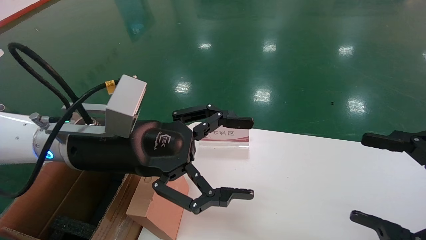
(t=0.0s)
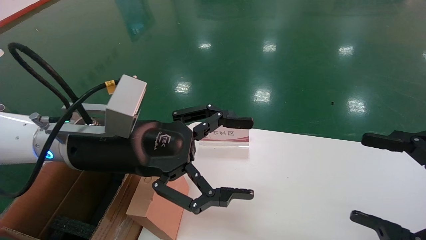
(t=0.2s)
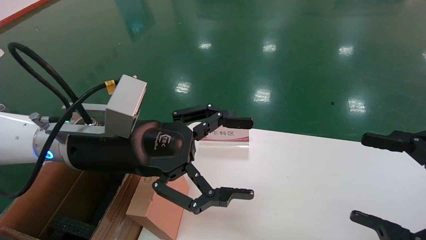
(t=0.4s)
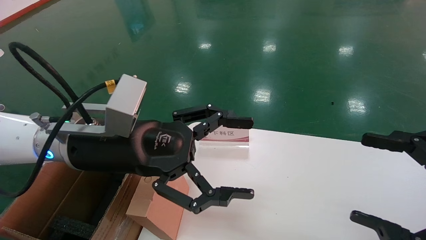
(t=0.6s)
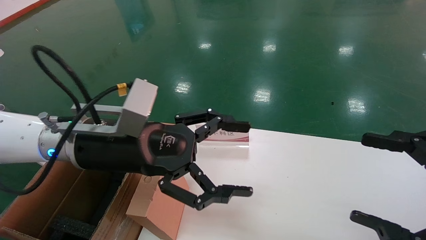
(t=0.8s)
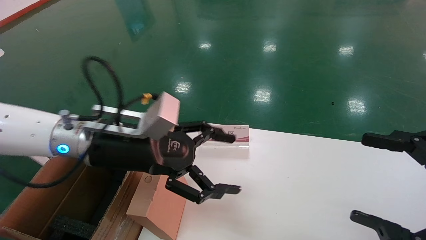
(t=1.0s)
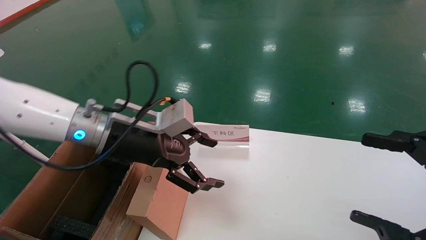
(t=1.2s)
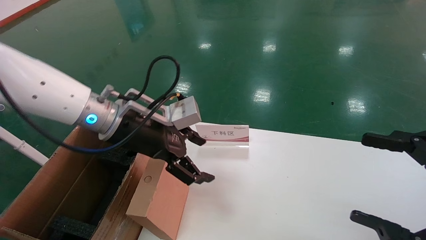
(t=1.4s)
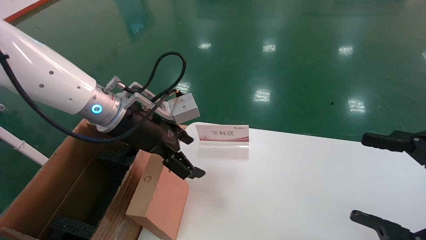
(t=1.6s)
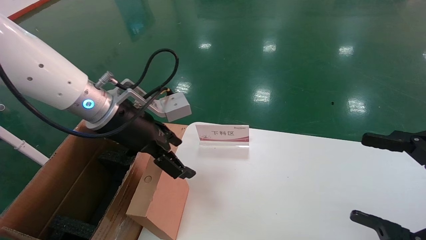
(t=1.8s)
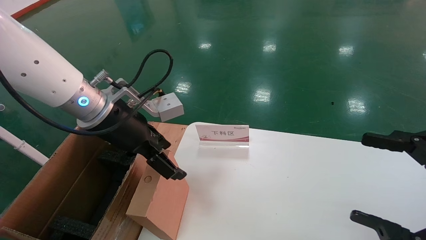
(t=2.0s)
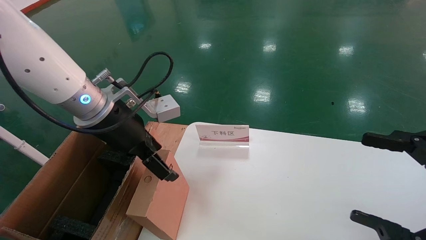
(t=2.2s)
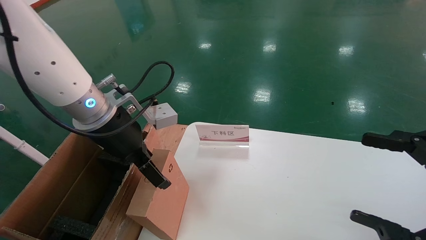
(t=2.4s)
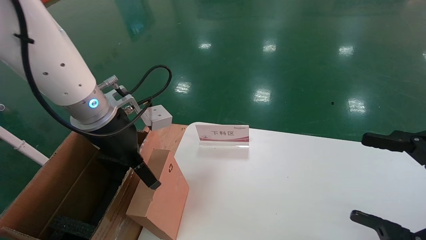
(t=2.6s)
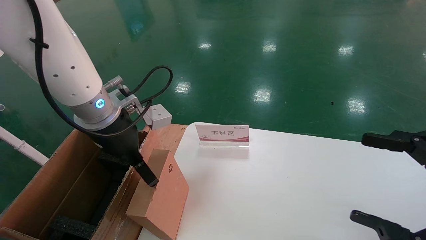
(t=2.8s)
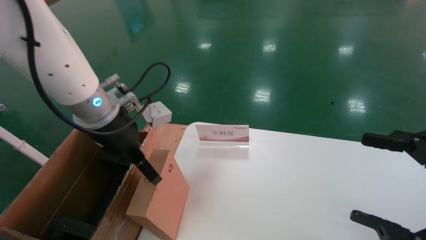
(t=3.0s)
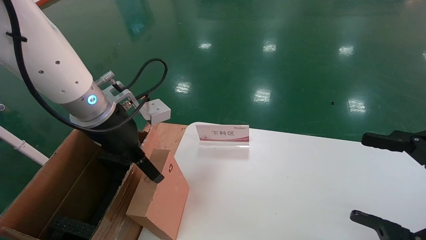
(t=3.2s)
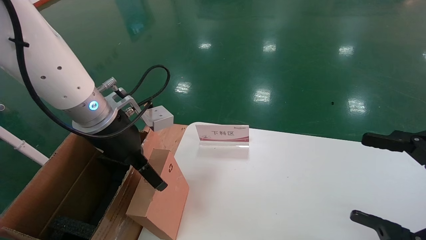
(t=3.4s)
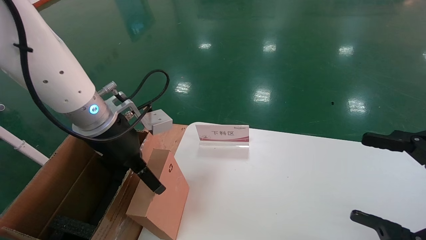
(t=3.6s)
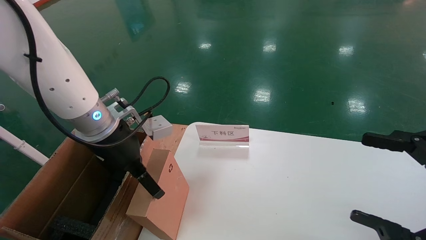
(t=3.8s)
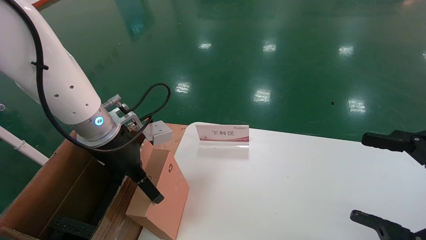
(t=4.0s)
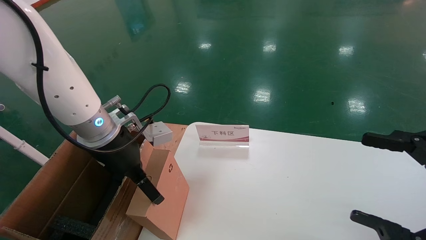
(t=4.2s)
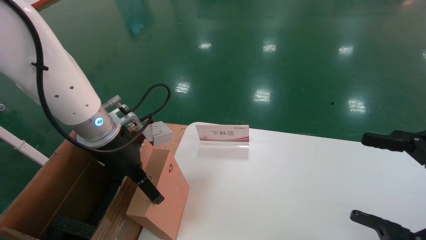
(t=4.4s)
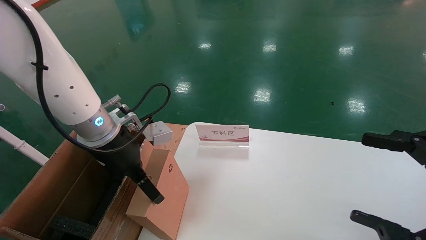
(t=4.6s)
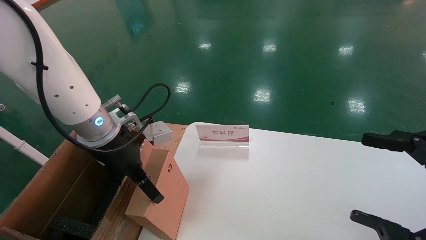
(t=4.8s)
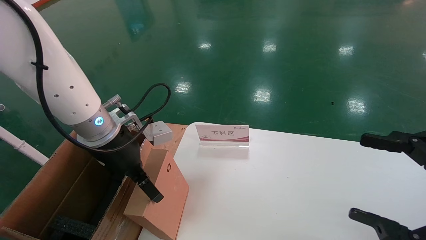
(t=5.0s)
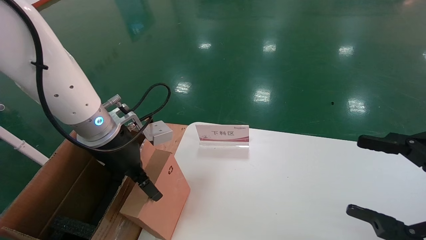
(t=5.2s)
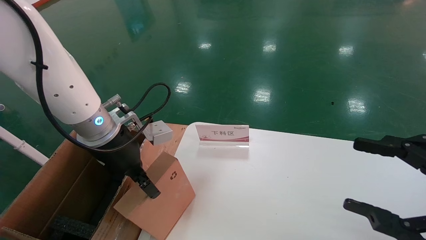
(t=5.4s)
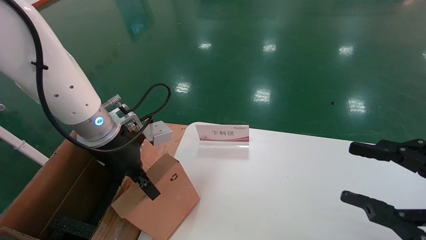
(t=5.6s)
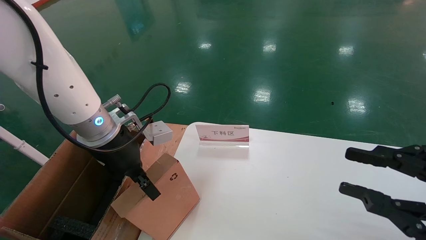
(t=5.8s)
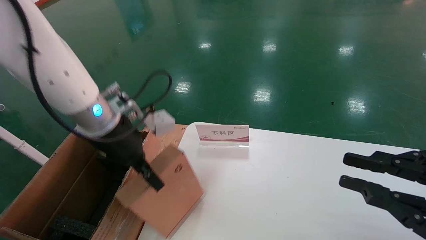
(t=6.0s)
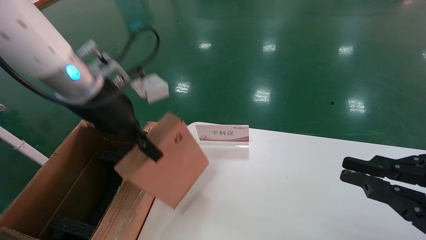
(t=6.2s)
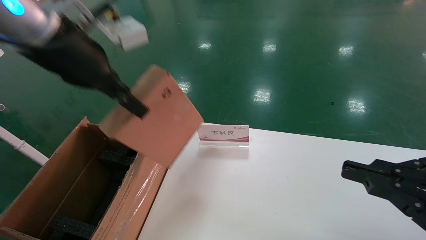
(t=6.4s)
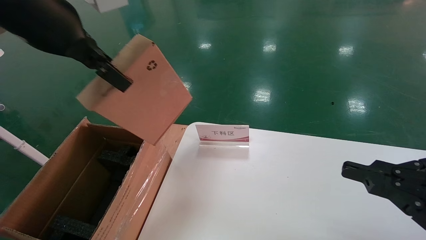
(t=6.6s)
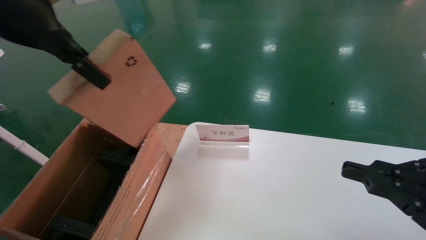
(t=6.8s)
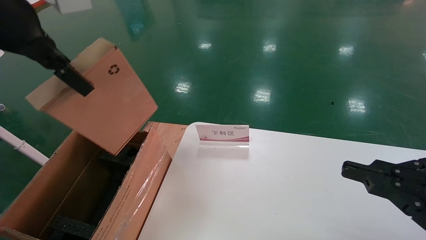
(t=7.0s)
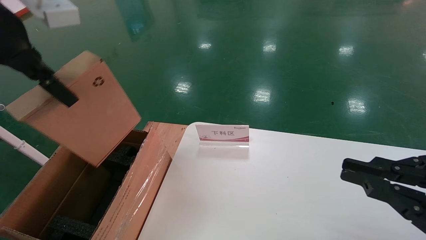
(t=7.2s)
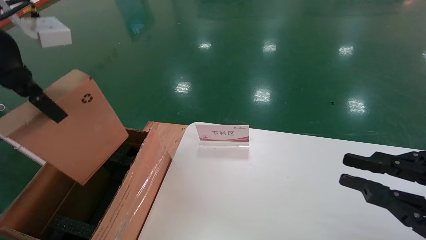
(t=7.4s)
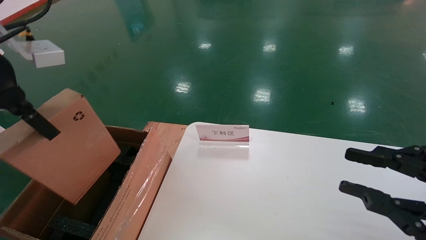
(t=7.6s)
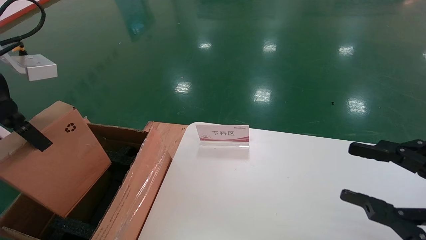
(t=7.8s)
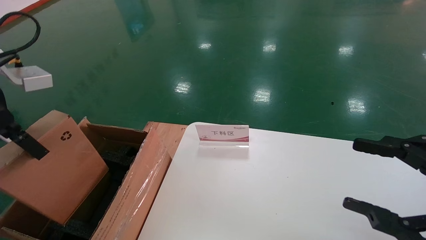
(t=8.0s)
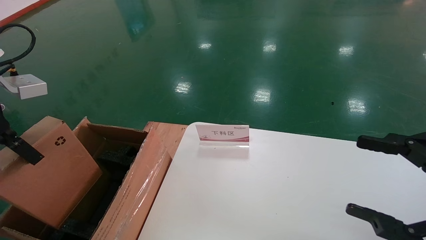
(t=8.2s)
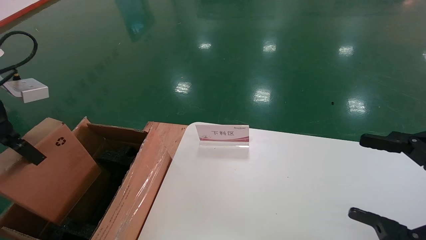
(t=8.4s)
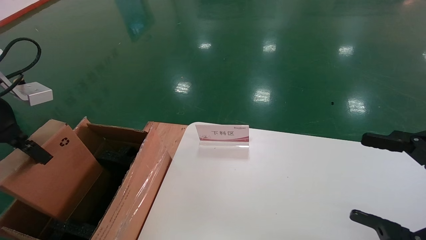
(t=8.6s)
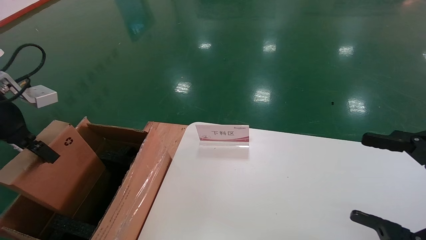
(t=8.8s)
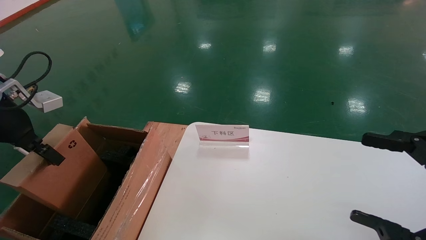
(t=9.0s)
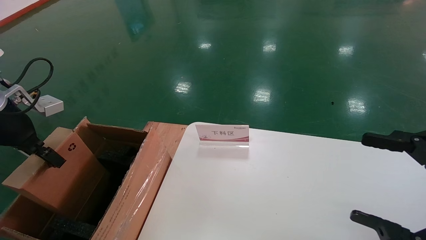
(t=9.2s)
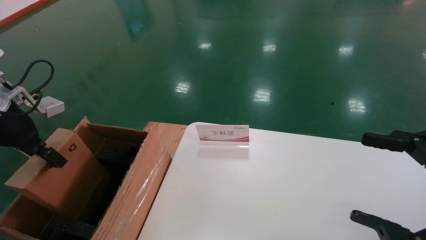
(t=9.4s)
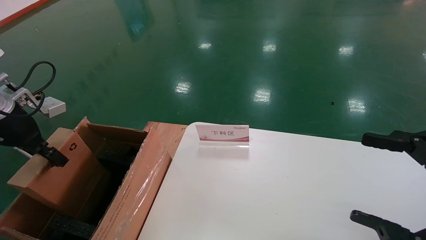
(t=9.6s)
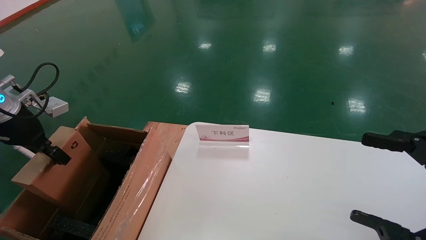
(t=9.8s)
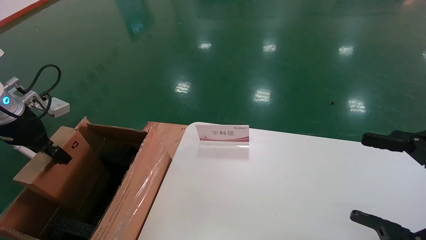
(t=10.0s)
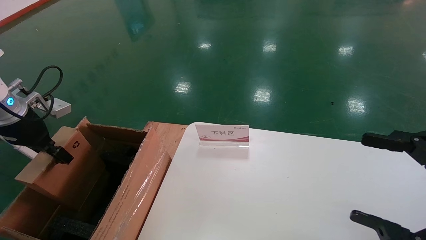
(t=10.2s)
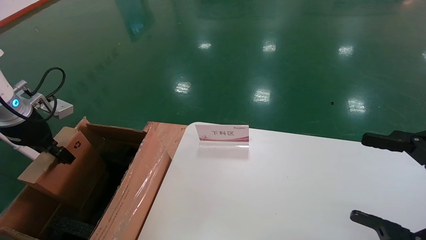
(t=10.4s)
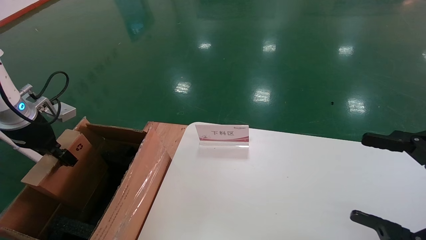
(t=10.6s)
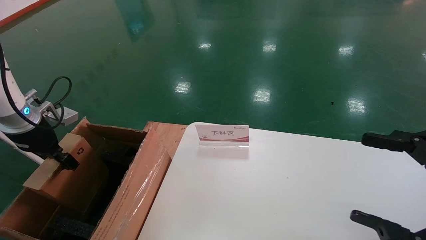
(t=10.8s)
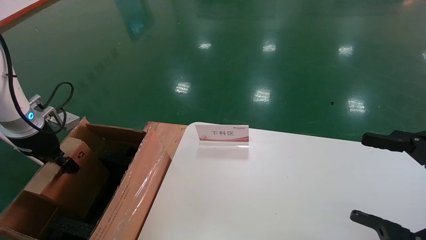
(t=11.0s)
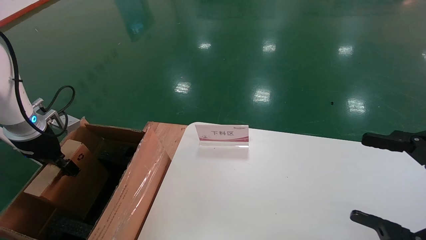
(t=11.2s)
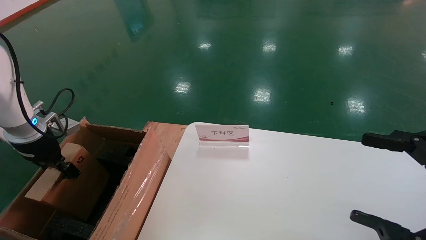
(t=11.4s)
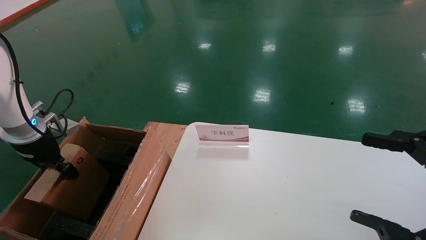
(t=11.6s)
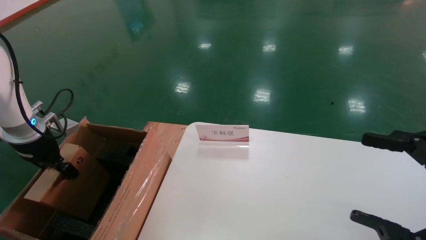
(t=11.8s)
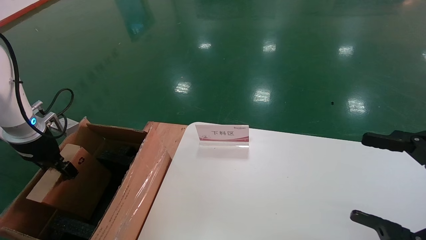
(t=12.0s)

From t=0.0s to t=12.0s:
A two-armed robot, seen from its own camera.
Task of the whole recording: pick up the small cardboard box and load it into the large cardboard box.
Step, from t=1.0s to t=5.6s: Pick up the mouse and power cord box.
From t=0.0s to t=1.6s: The left gripper moves forward, some 5 cm.
From t=3.0s to t=4.4s: The grippers move only a little.
From t=4.4s to t=6.0s: The right gripper closes; the left gripper closes its fingers.
From t=6.0s to t=7.6s: The left gripper heads to the left, upward and backward, covering some 20 cm.
From t=7.6s to t=9.0s: The right gripper opens its fingers. The left gripper moves downward and to the left, roughly 15 cm.
From t=9.0s to t=10.4s: The left gripper moves forward, about 5 cm.
From t=10.4s to t=12.0s: The left gripper ends up some 5 cm from where it was.

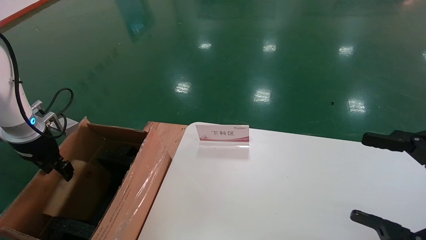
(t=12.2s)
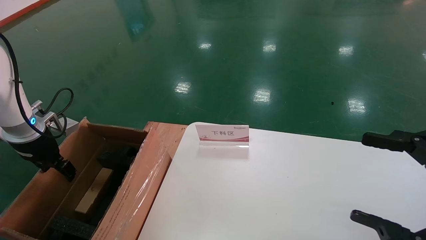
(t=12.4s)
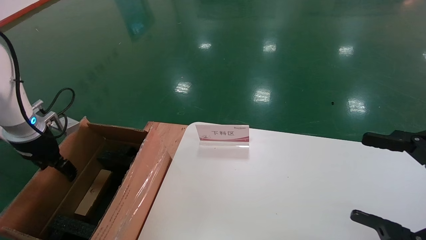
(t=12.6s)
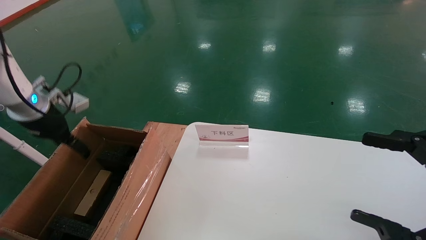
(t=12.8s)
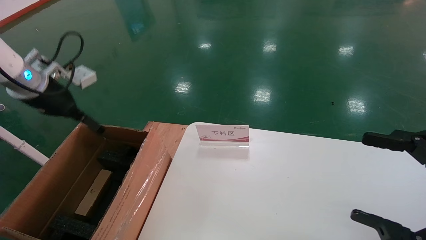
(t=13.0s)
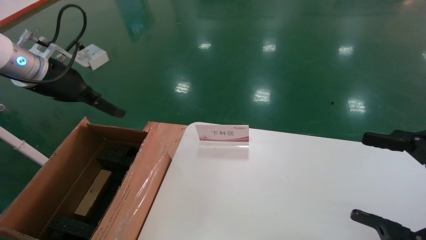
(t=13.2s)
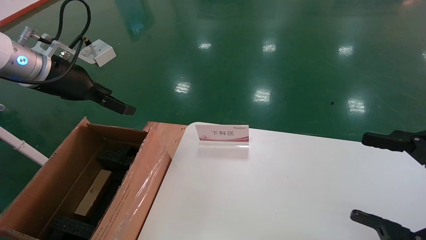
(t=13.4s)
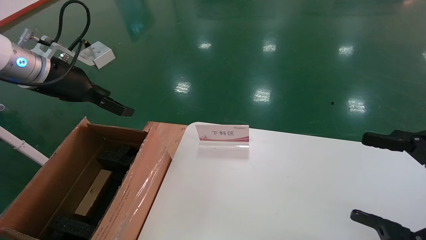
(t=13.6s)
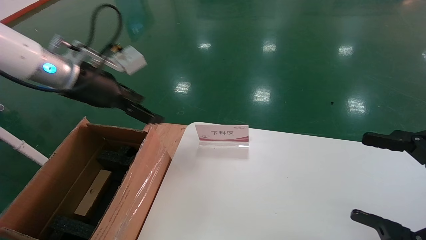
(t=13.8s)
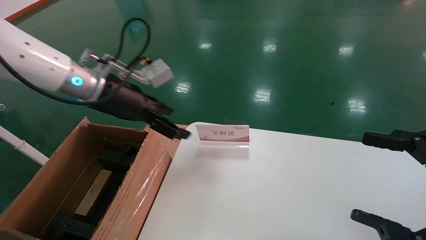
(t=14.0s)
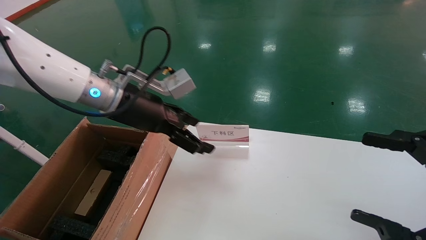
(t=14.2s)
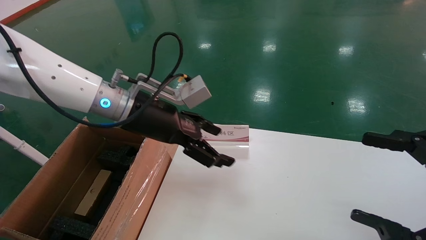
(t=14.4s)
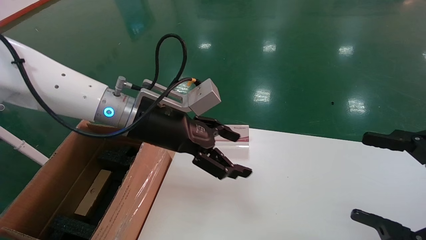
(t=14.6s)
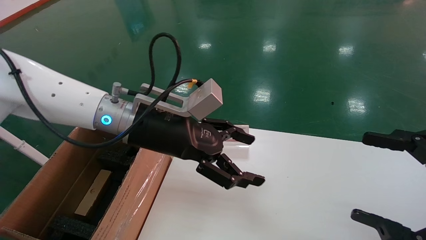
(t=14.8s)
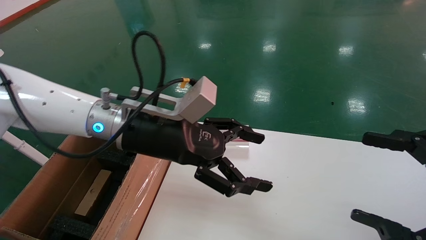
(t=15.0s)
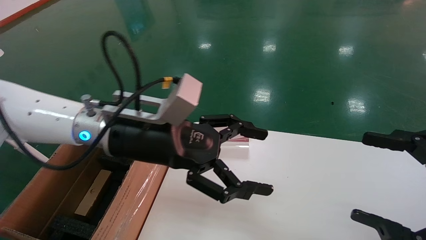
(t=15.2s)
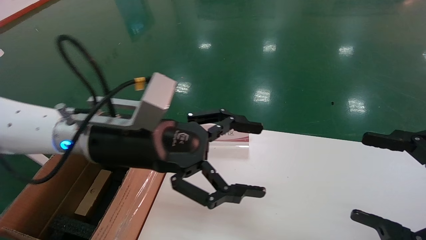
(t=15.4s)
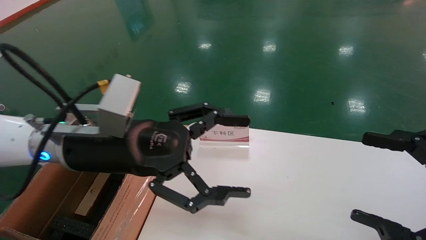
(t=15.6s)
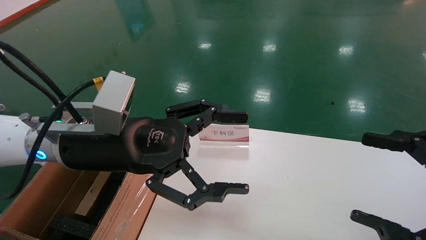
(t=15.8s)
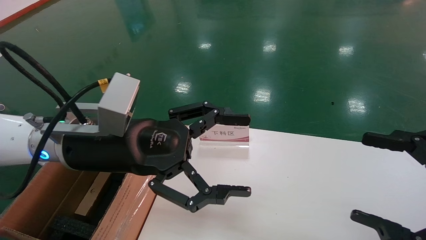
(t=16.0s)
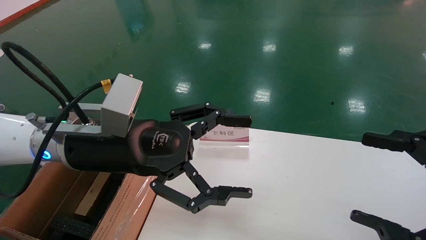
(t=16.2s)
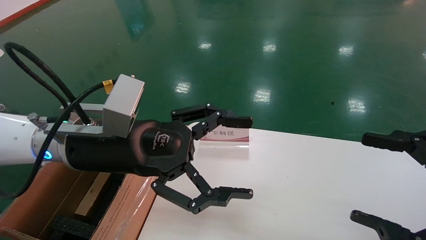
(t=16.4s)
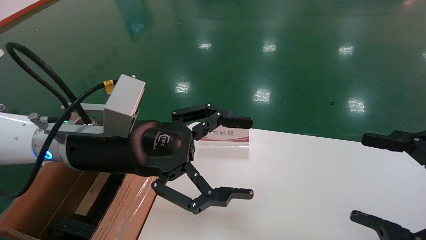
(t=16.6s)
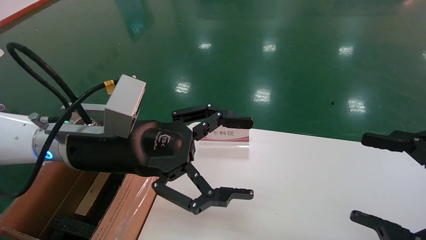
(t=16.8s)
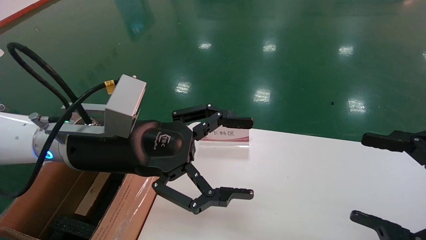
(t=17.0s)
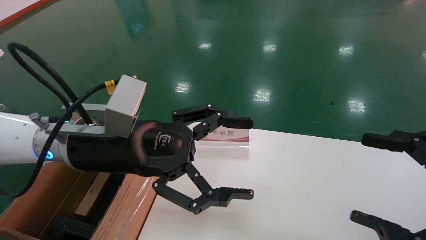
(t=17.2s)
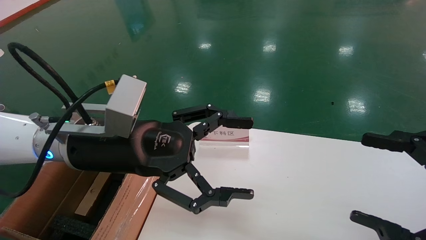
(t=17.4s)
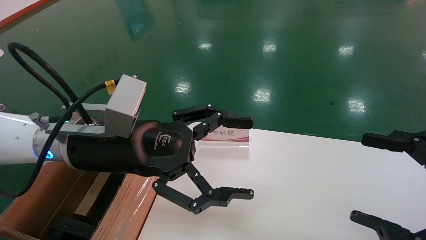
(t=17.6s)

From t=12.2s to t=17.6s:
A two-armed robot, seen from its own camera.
Task of the whole recording: pick up the small cardboard box and load it into the large cardboard box.
From t=12.2s to t=13.6s: The left gripper goes some 20 cm upward and to the right, and opens.
From t=13.6s to t=15.0s: The left gripper moves to the right, some 20 cm.
From t=15.0s to t=16.2s: The left gripper heads backward, covering approximately 5 cm.
From t=16.2s to t=17.6s: Both grippers stay put.
